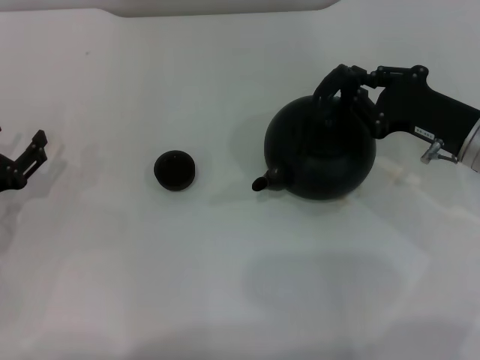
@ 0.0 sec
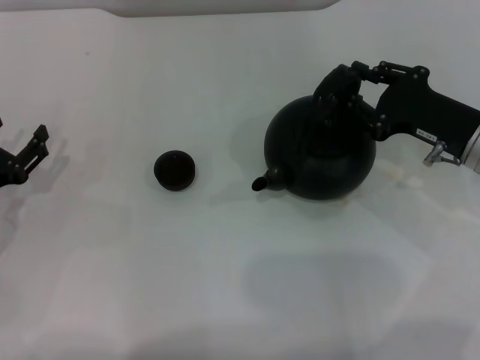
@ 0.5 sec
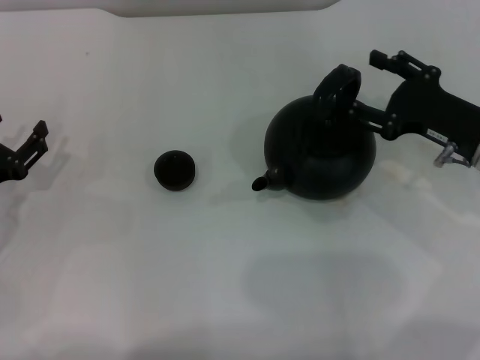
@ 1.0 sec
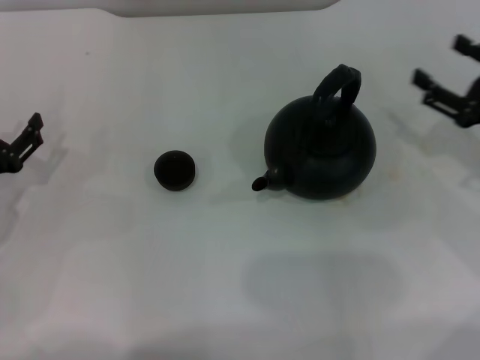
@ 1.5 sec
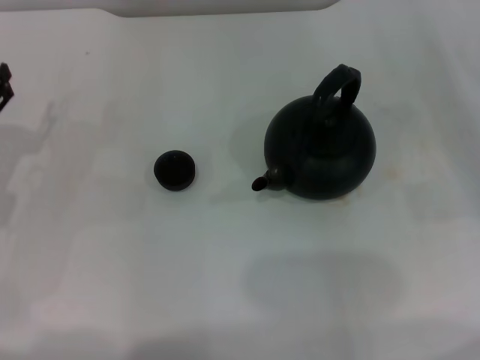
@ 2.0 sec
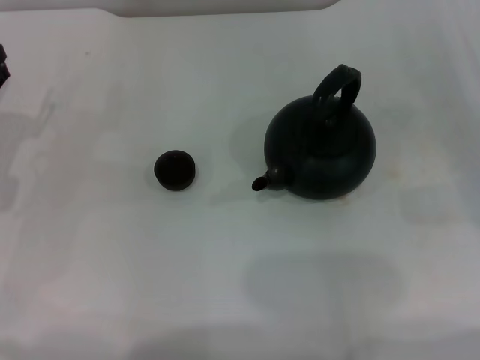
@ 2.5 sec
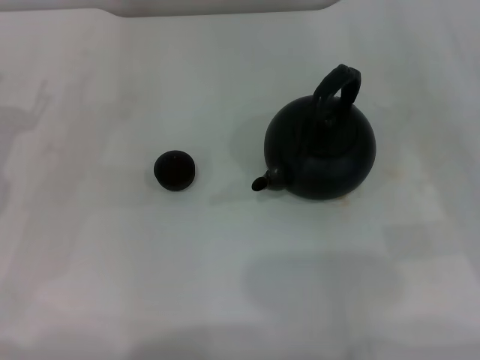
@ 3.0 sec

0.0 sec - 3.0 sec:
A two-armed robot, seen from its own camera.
Task of the whole recording: Grasp the handle of the teapot with one hand and pour tea into the teacup.
0.0 sec - 1.5 sec: The right gripper travels to the right by about 5 cm, and opens up.
1.5 sec - 3.0 sec: The left gripper moves approximately 5 cm.
